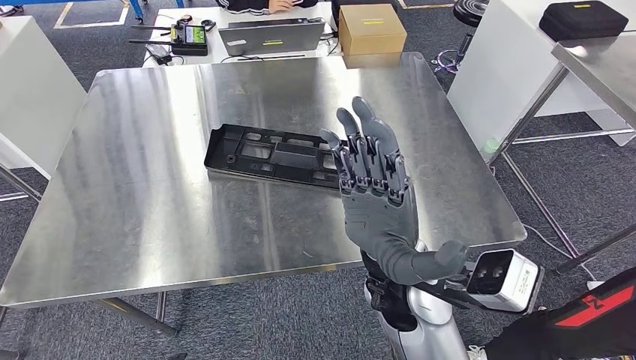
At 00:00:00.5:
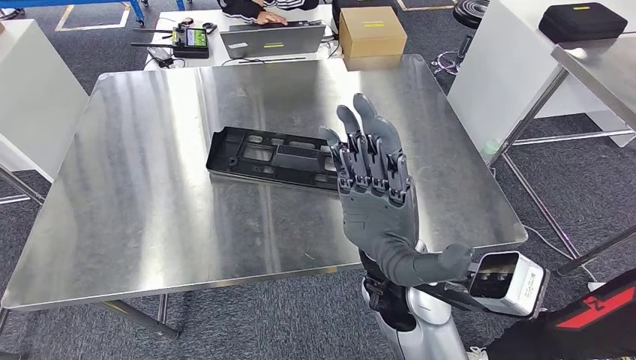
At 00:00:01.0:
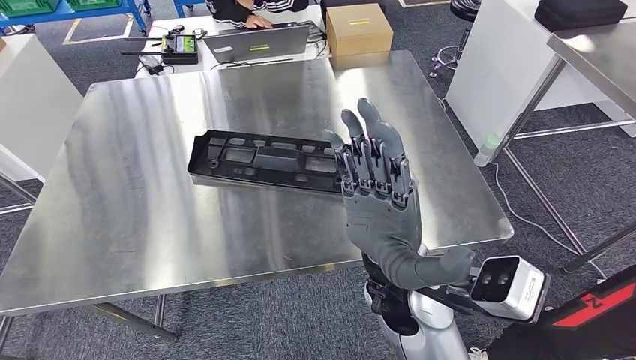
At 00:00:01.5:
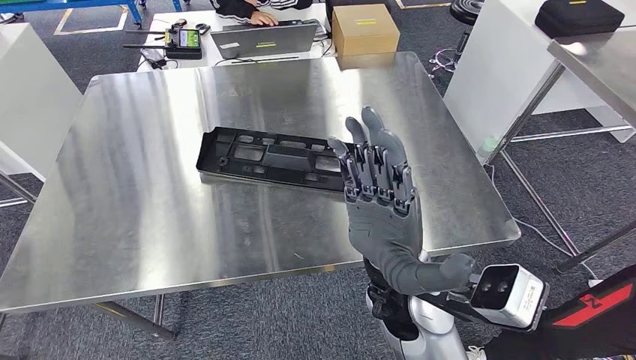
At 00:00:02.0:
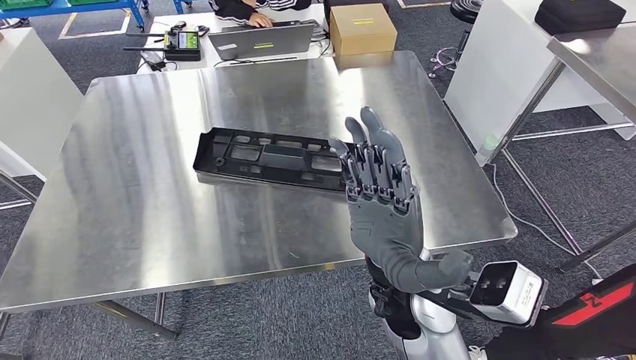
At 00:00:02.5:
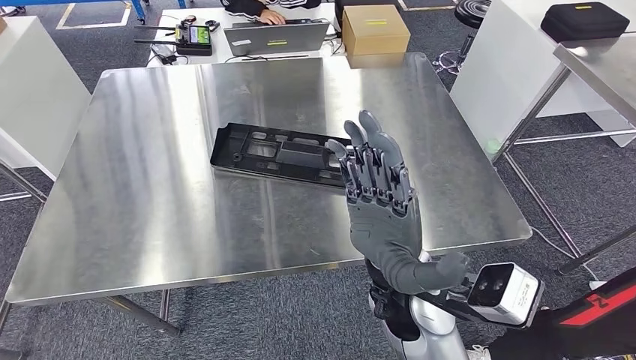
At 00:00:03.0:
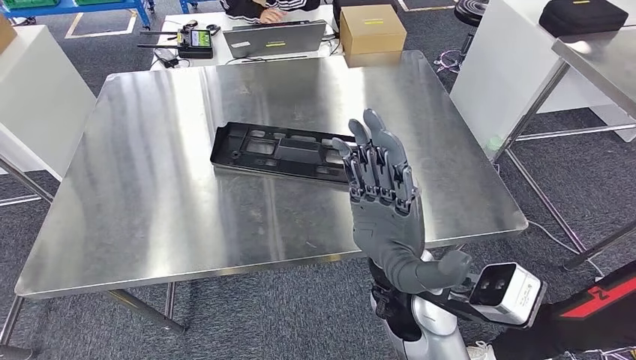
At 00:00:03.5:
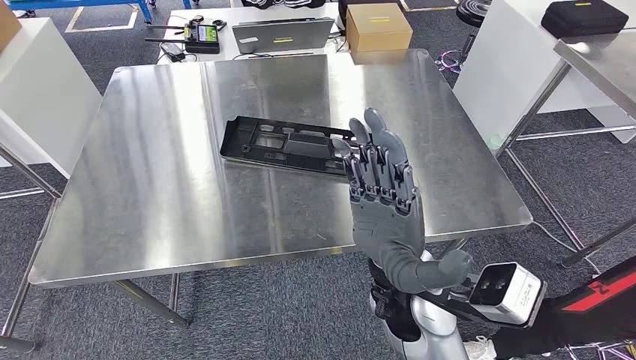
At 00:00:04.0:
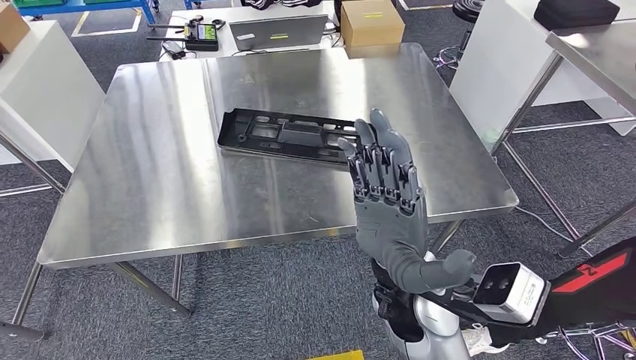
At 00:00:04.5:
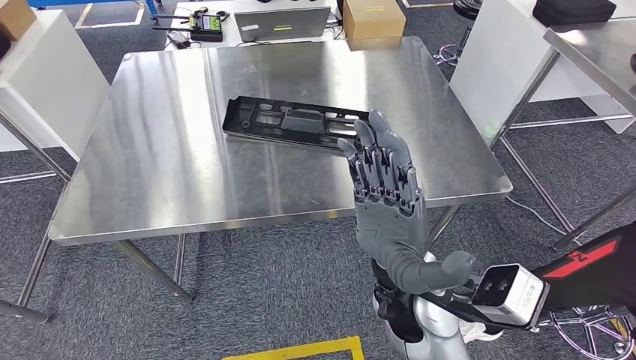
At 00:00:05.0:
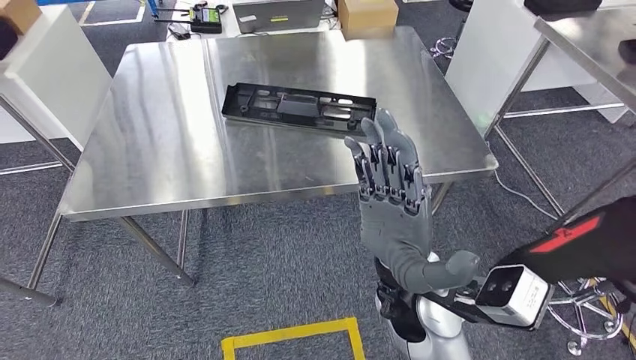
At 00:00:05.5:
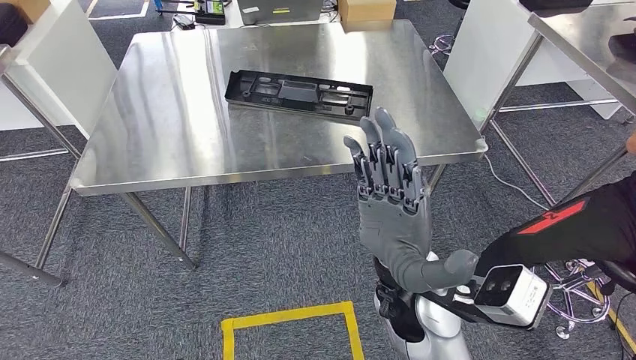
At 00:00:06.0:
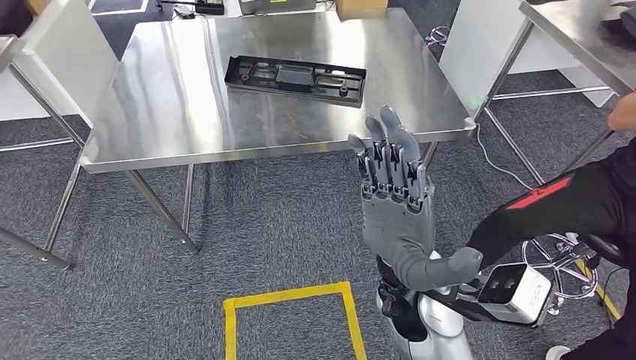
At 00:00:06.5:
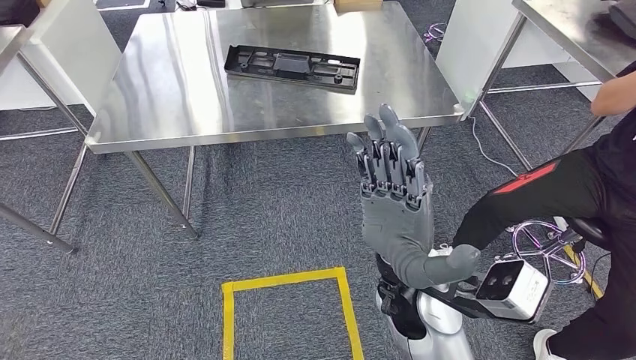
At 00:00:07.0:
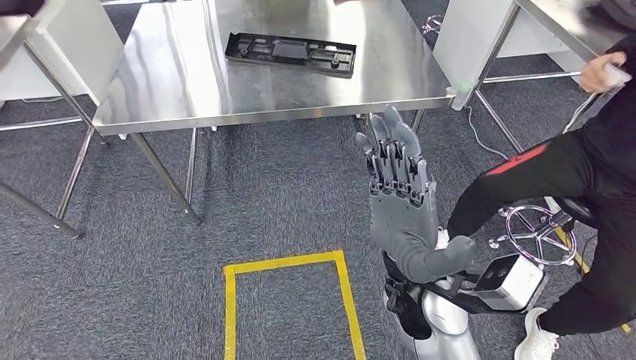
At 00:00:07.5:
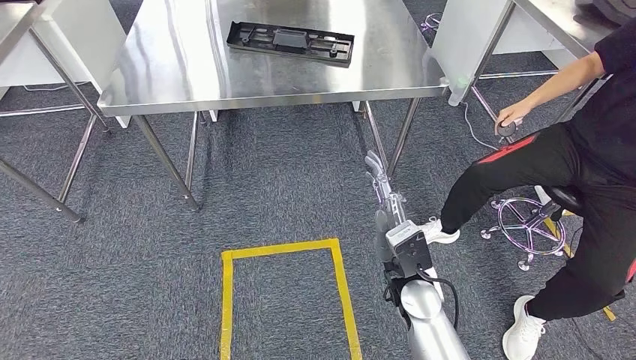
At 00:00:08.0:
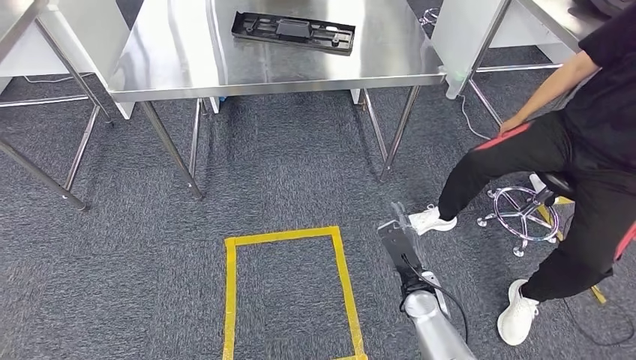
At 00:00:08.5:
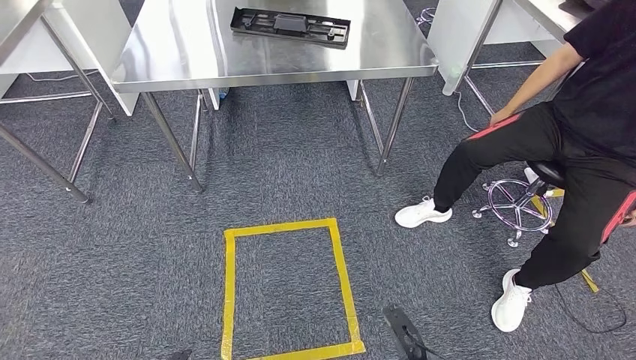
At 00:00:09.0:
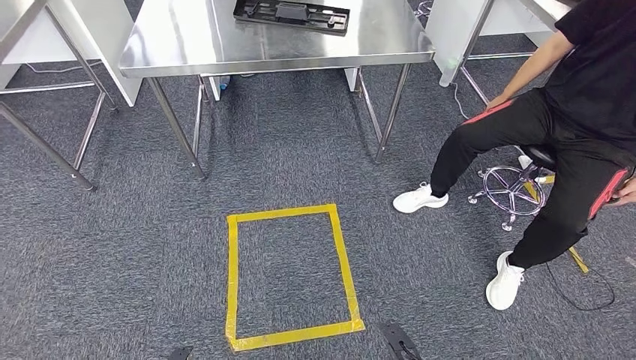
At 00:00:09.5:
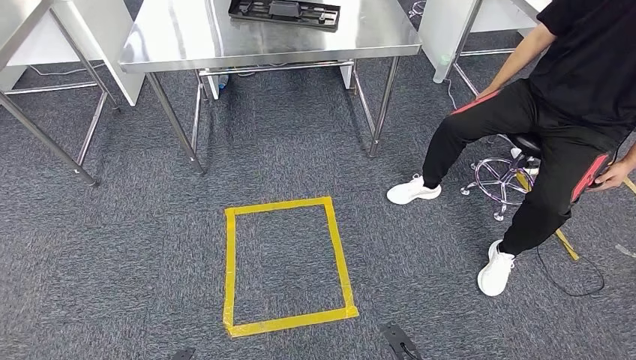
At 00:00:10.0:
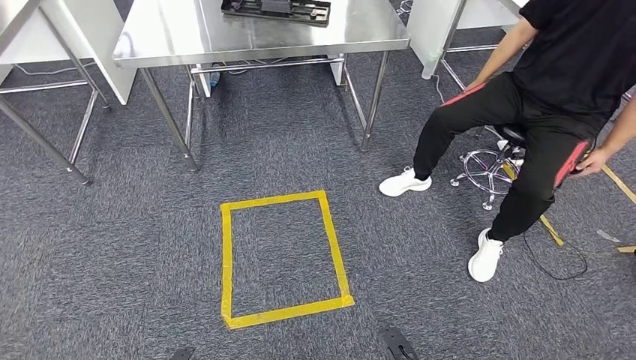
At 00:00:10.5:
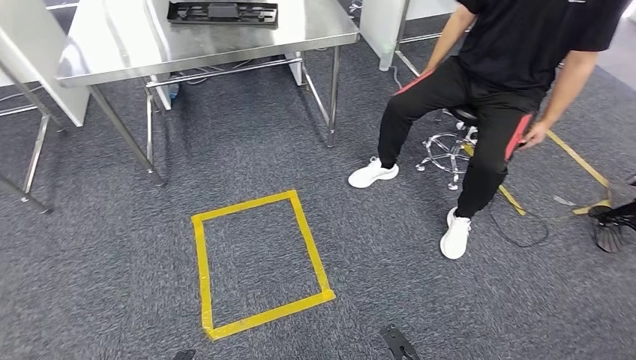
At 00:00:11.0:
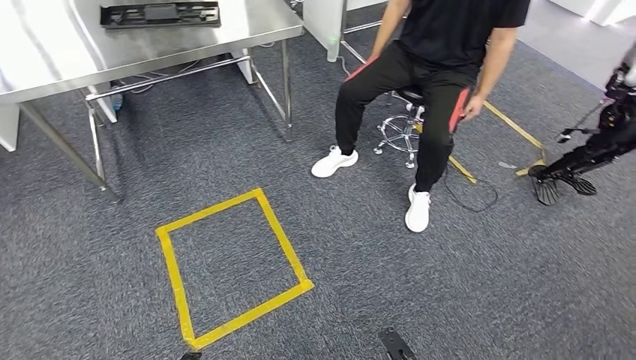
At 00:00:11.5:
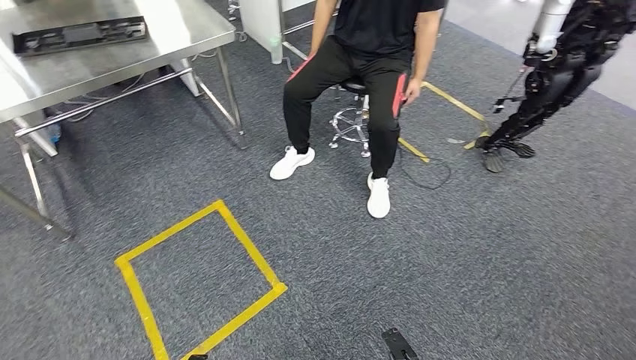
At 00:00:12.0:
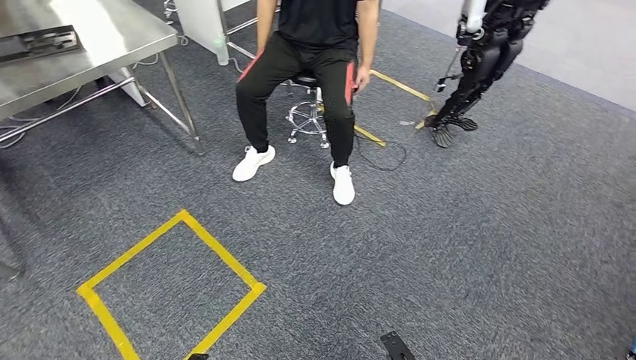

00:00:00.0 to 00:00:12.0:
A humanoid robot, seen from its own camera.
Step, 00:00:00.0 to 00:00:06.0: Insert the large material into the corresponding slot on the workbench.

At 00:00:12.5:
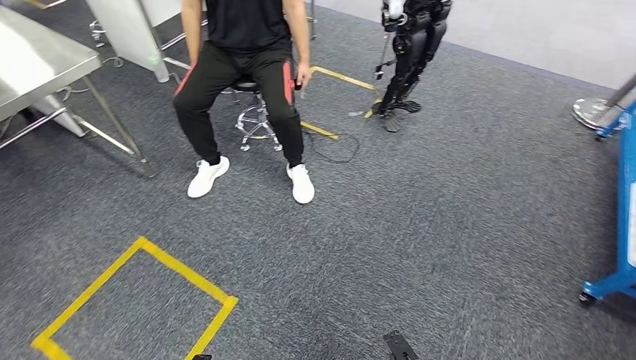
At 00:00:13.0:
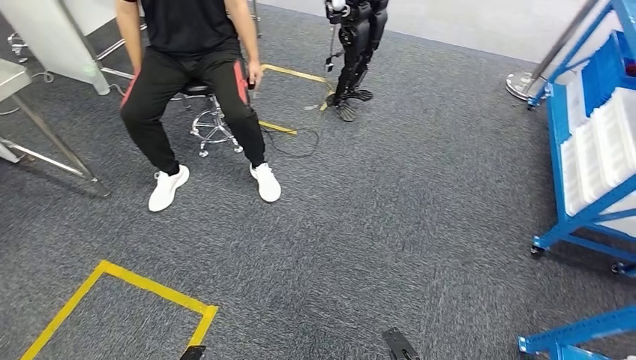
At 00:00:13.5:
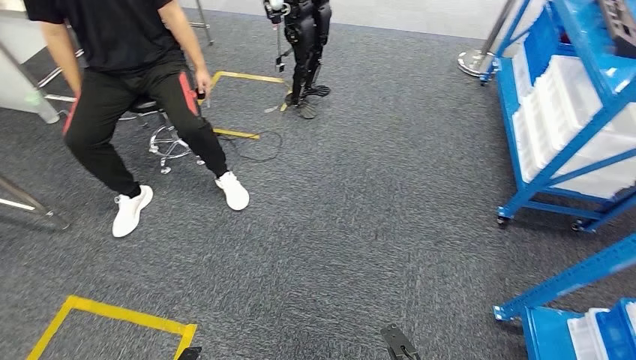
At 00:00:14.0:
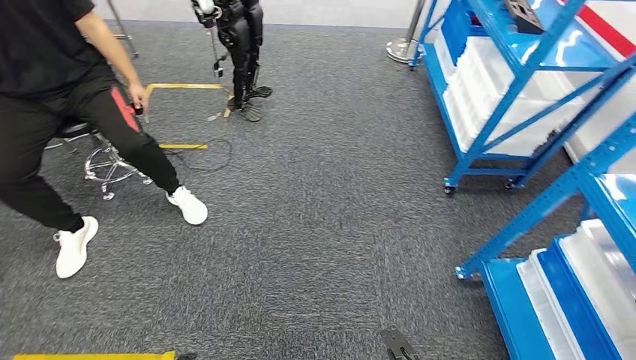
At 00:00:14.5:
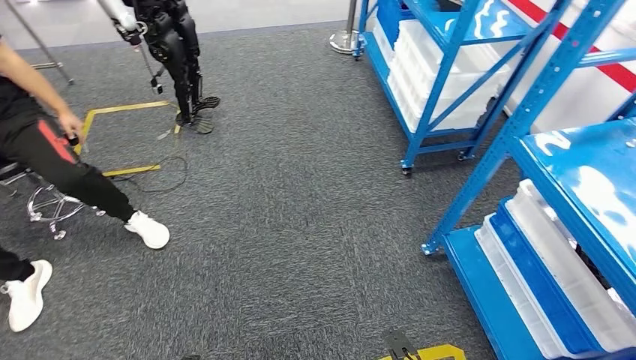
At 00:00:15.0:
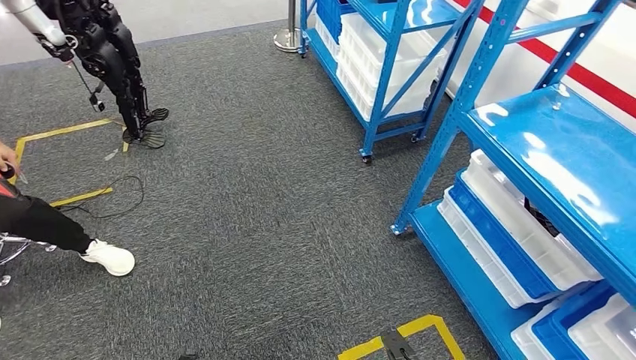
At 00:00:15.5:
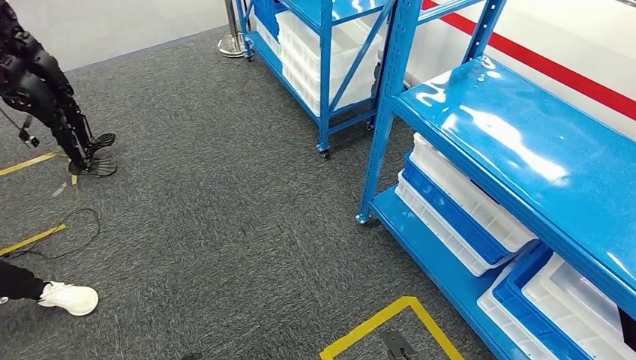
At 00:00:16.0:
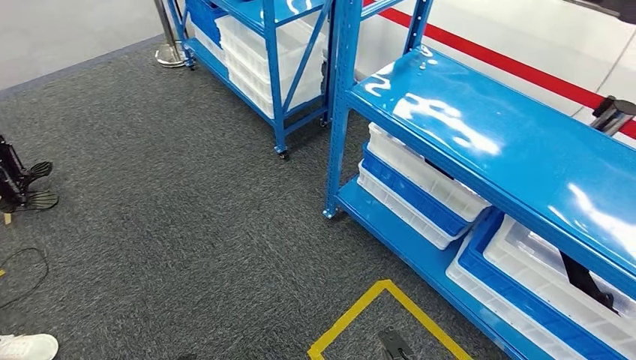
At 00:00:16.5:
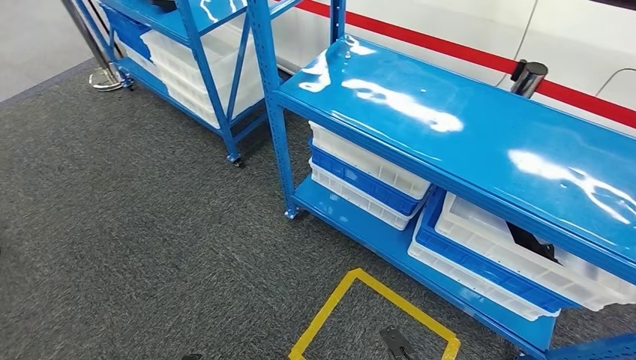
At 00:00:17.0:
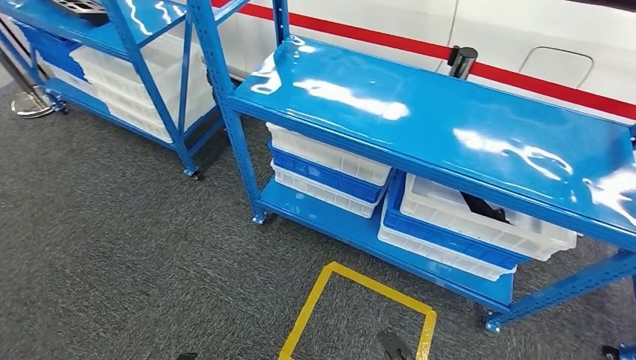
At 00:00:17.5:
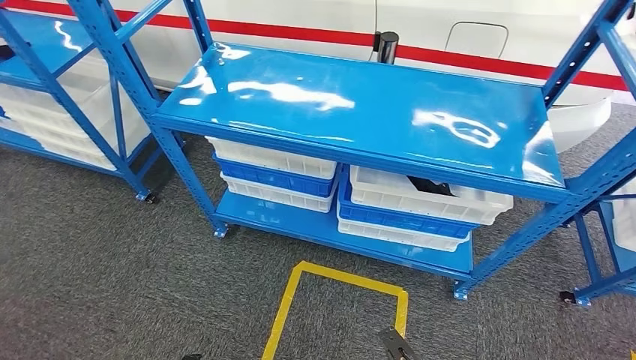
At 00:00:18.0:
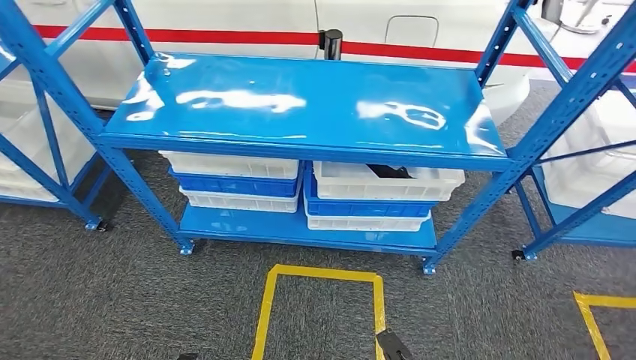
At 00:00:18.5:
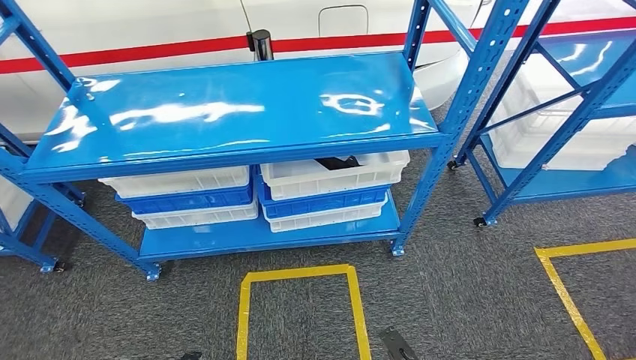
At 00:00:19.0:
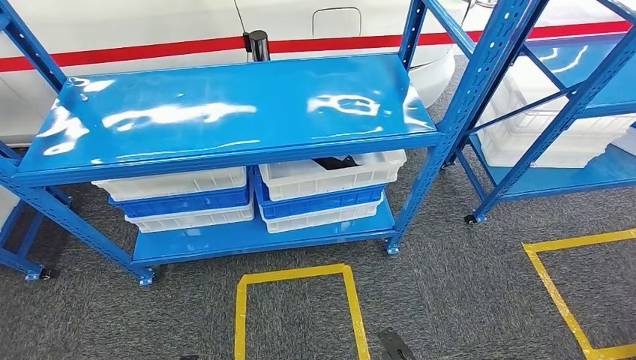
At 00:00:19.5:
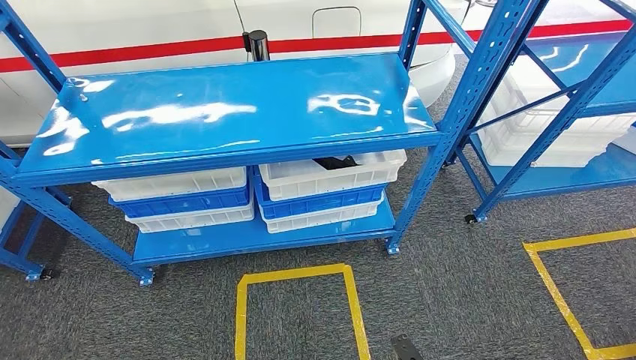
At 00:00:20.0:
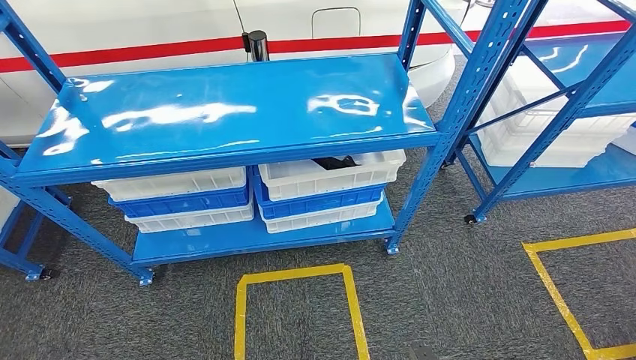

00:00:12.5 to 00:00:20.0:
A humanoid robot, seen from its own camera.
Step, 00:00:12.5 to 00:00:20.0: Move to the initial position of the shelf.

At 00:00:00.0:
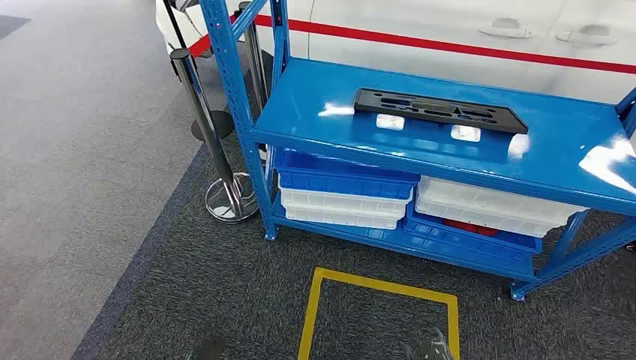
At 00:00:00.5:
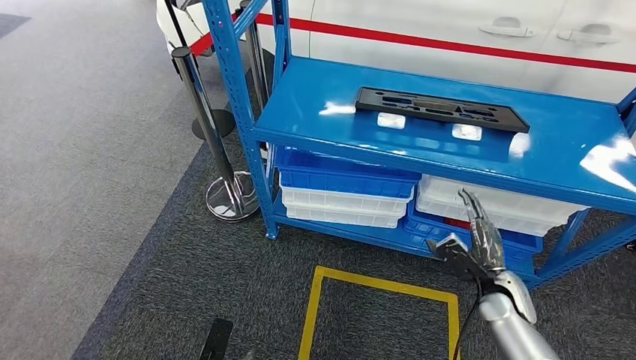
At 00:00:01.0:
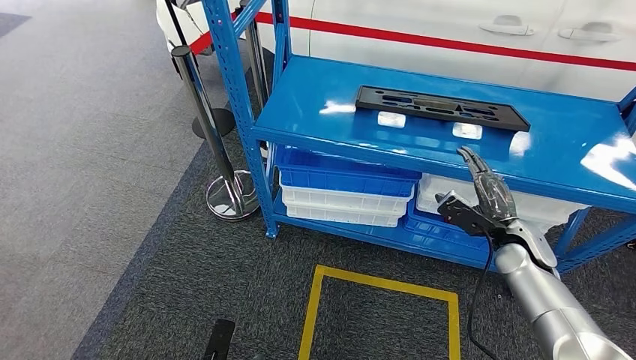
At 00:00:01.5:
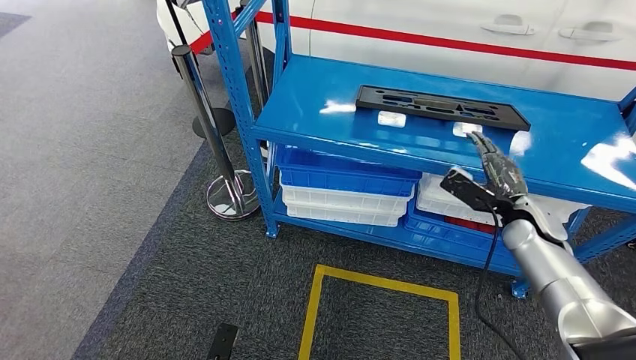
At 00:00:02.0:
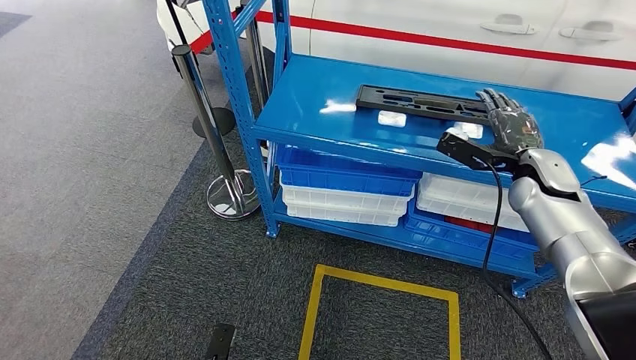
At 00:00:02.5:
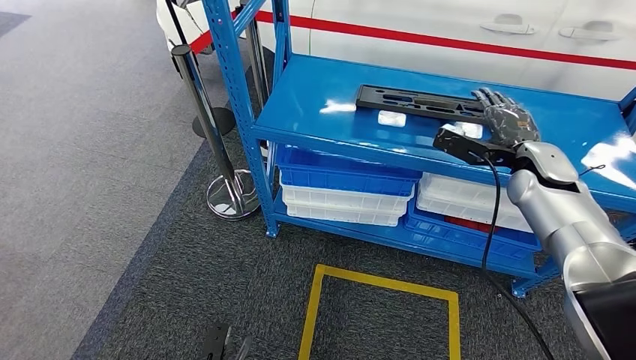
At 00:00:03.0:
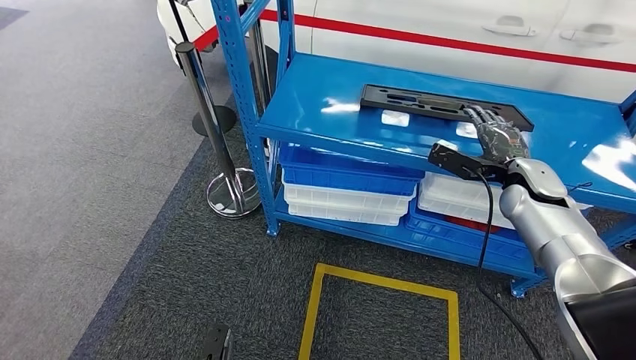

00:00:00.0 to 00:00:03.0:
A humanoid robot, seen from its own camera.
00:00:01.5 to 00:00:03.0: The right hand heads upward, covering about 5 cm.
